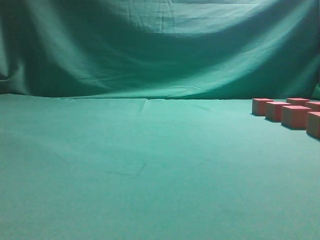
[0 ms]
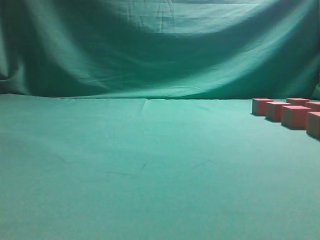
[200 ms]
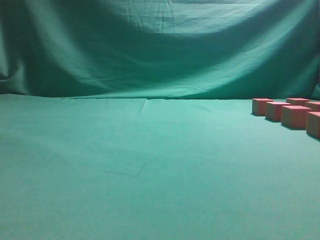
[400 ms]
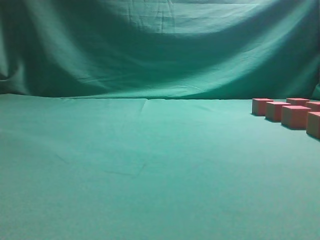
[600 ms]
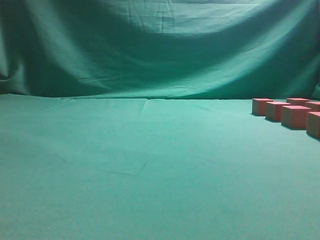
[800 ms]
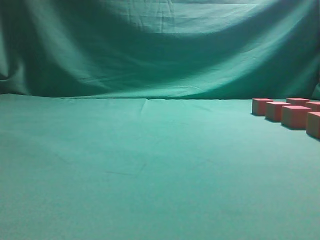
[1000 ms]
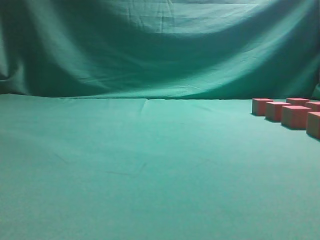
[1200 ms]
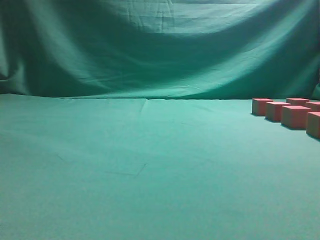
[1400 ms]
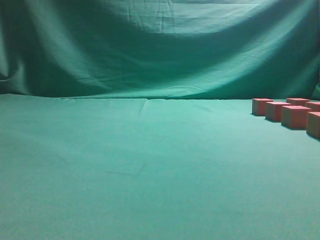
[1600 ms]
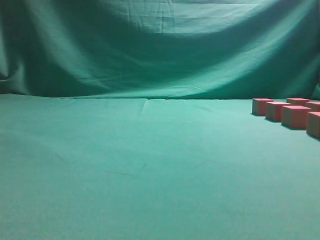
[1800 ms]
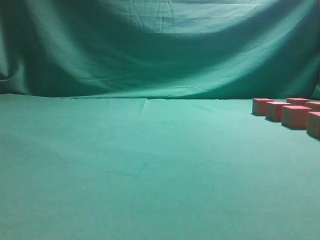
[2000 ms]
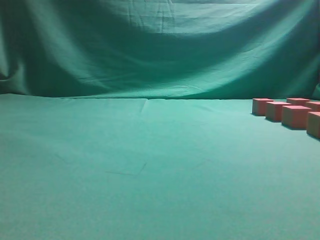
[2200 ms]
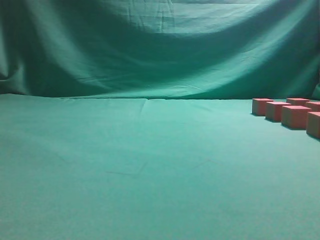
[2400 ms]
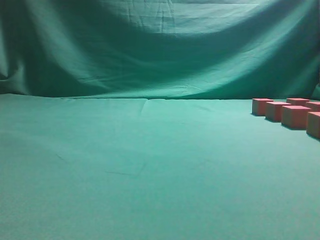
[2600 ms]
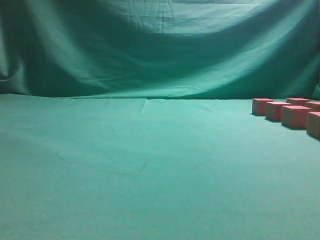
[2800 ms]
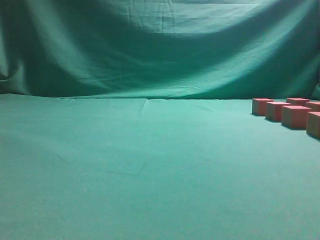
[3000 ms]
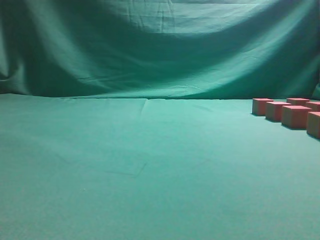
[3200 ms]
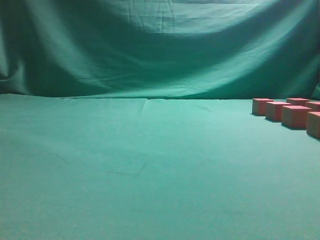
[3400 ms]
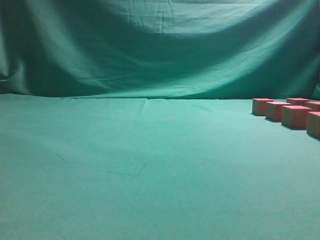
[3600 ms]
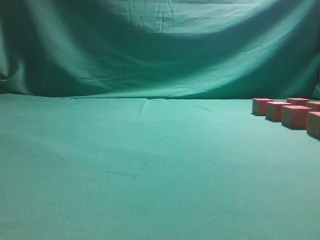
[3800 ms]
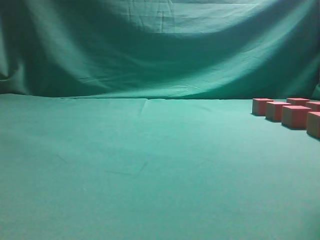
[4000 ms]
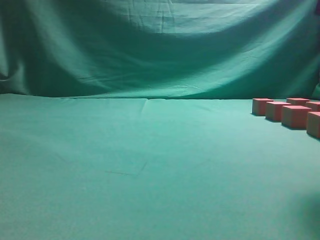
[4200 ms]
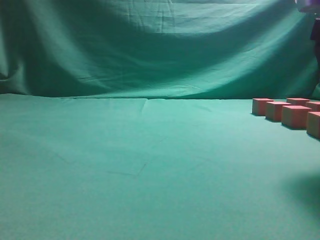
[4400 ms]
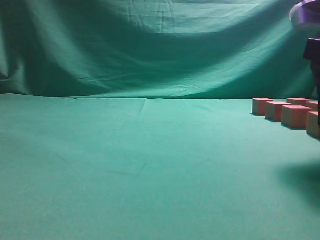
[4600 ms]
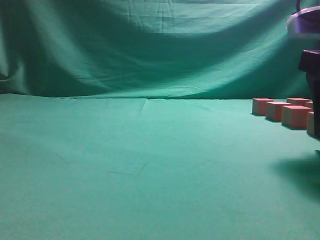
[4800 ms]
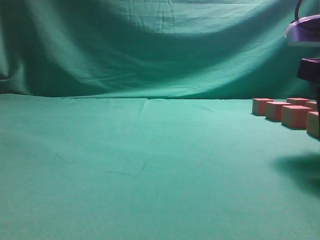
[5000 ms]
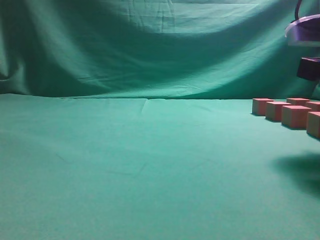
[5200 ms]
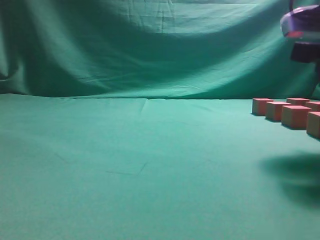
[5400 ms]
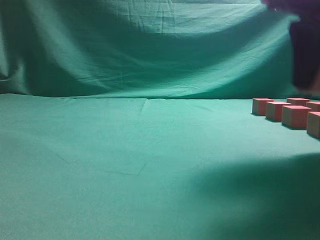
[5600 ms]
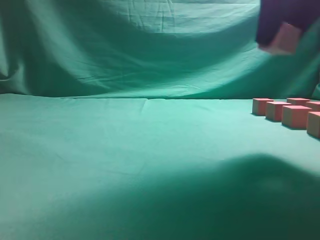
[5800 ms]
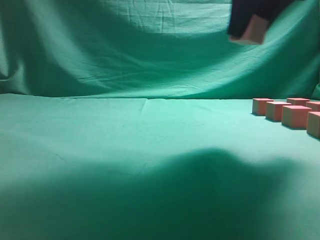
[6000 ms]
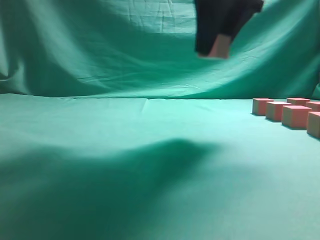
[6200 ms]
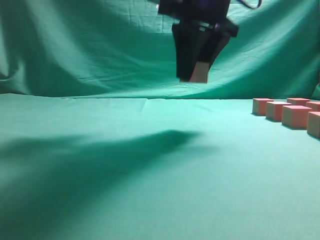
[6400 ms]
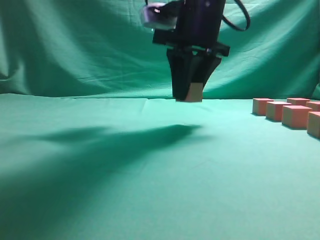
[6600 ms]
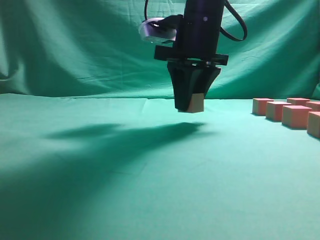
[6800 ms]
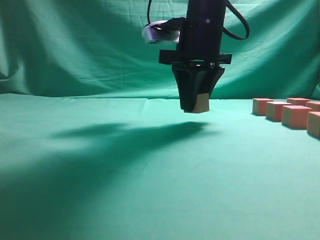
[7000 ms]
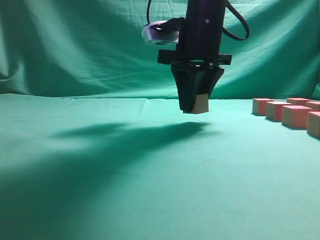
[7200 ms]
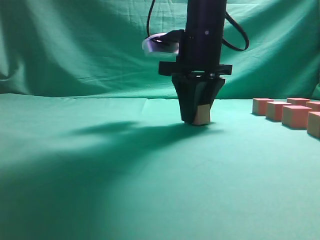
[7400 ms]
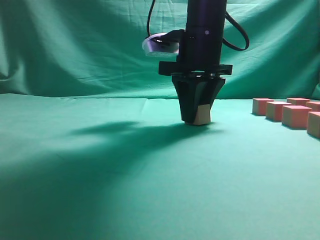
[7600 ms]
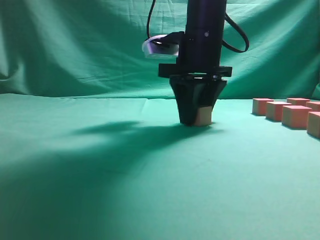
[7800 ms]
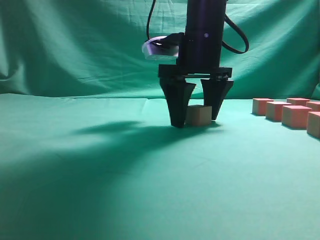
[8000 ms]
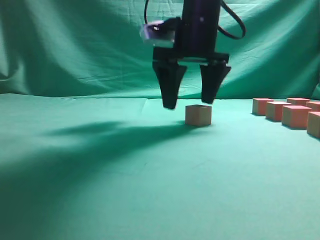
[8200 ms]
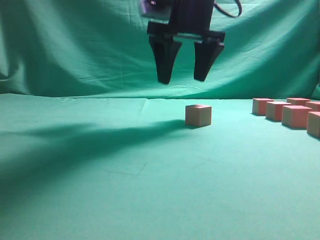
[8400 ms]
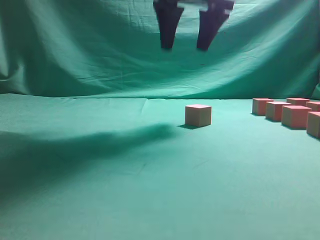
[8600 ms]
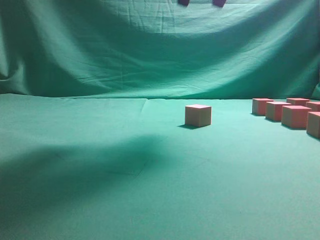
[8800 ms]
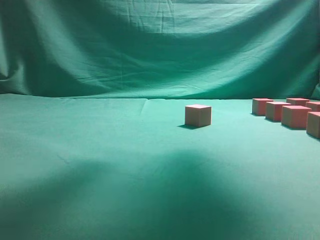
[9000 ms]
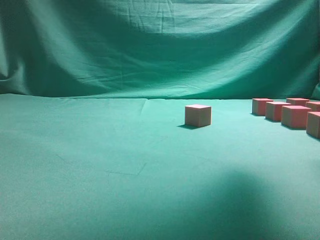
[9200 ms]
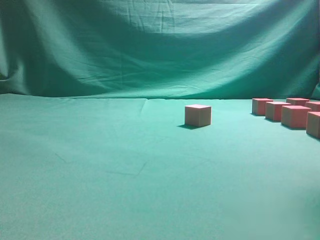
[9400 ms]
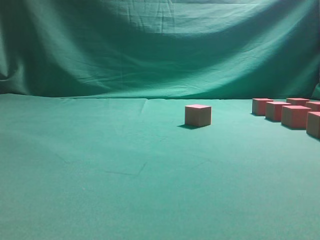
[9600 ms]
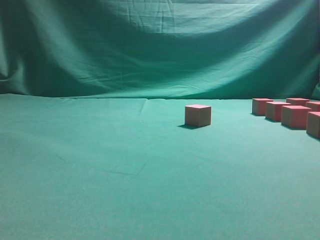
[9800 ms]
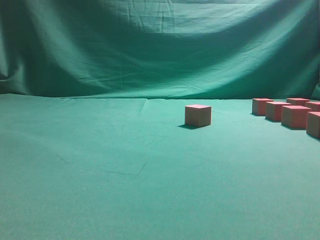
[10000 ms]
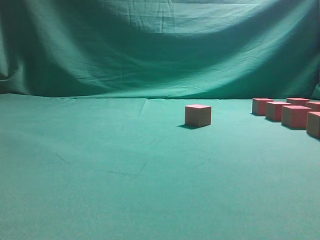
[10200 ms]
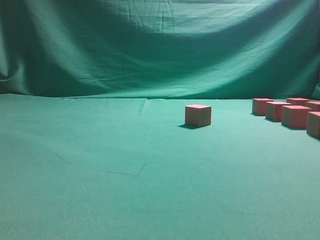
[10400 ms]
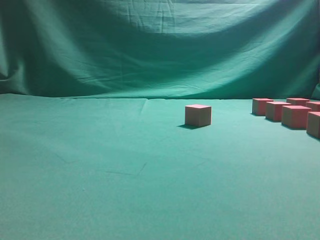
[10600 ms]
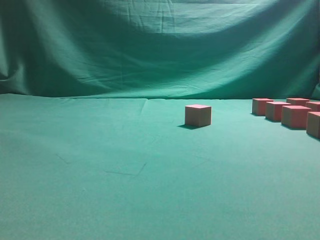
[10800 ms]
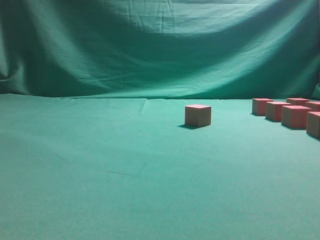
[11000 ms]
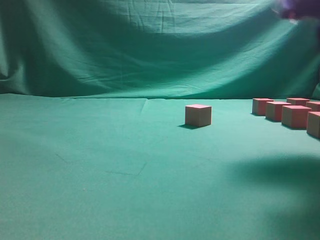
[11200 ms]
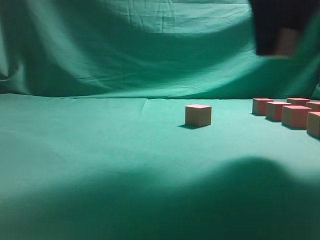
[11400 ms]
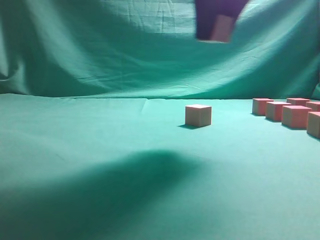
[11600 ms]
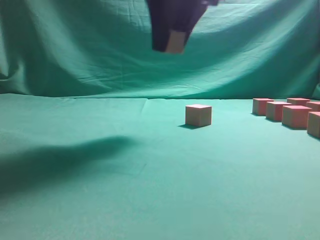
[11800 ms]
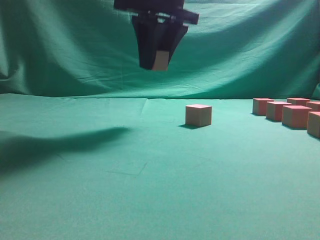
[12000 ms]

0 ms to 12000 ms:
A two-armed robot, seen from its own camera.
Task of the whole recording: pick up the multiple cubes in two columns one by one and place them in another position on the table.
Step, 0 ms to 5400 ms: Pick up the block on the table.
Step, 5600 ms to 8600 ms: Place the block at the correct position to assemble the letter S.
Step, 8800 ms to 11000 ms: Pick up the block on the table.
3000 ms to 4400 ms: The right gripper is displaced forward and downward by some 15 cm, and opens up.
4400 ms to 6000 ms: The right gripper goes roughly 15 cm upward, forward and to the left, and closes its fingers.
6000 ms to 7600 ms: The right gripper shifts about 15 cm downward, to the left and forward.
7600 ms to 9000 ms: The right gripper shifts about 20 cm upward, and opens.
9000 ms to 10400 ms: The right gripper travels downward and to the right by about 25 cm.
10400 ms to 12000 ms: The right gripper is displaced to the left by some 25 cm, and closes up.

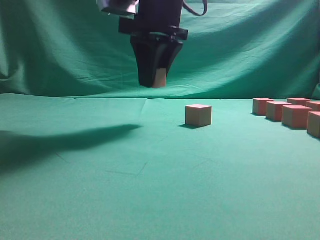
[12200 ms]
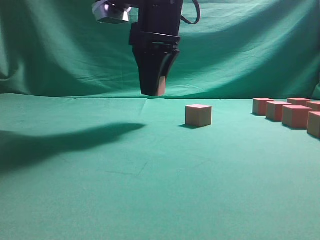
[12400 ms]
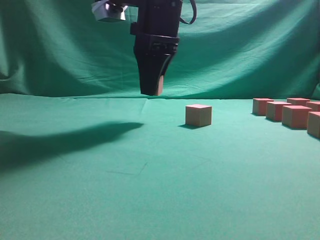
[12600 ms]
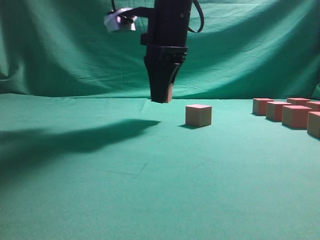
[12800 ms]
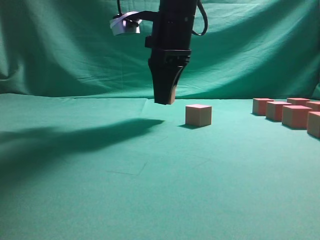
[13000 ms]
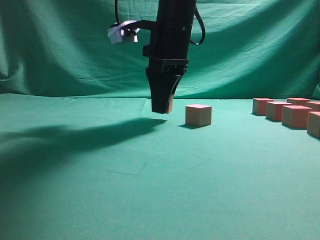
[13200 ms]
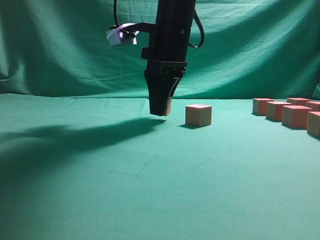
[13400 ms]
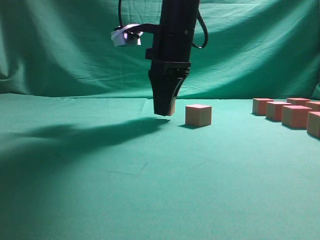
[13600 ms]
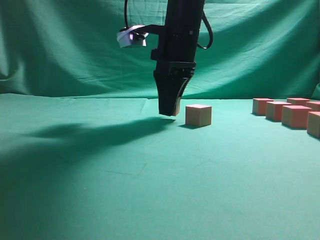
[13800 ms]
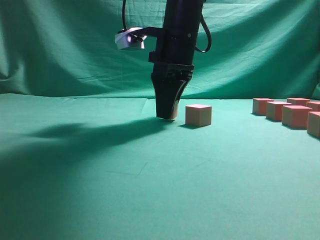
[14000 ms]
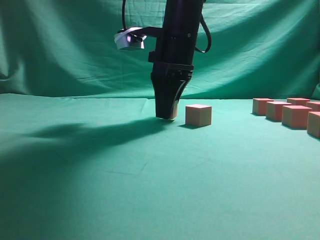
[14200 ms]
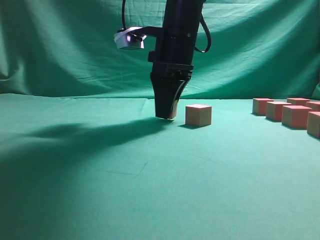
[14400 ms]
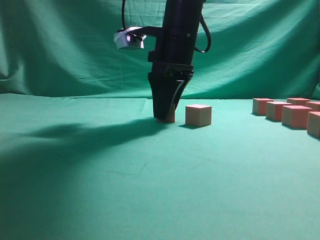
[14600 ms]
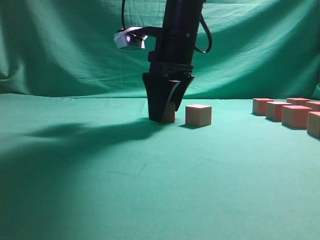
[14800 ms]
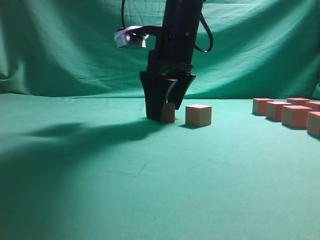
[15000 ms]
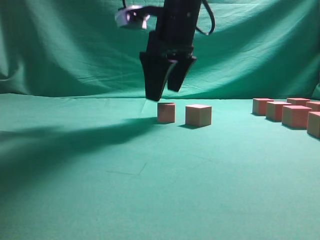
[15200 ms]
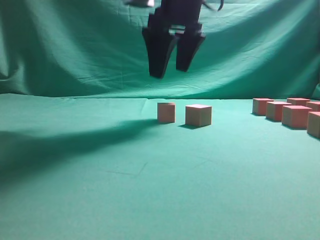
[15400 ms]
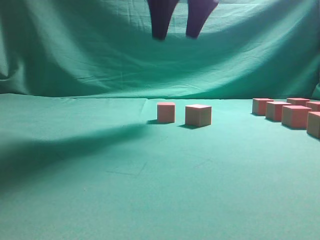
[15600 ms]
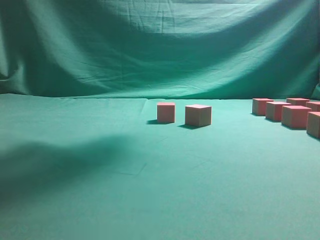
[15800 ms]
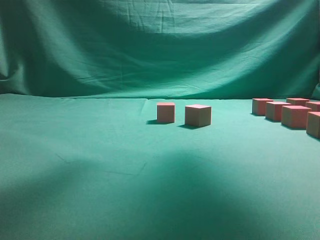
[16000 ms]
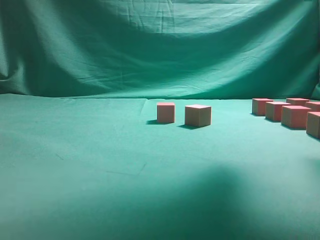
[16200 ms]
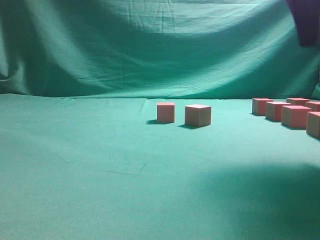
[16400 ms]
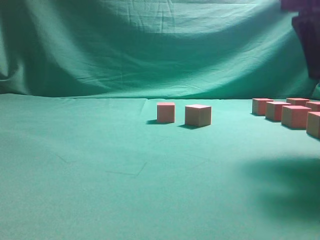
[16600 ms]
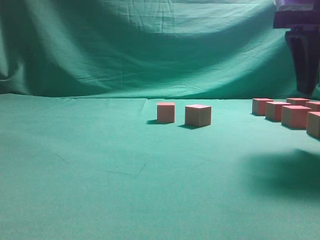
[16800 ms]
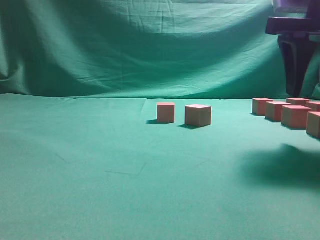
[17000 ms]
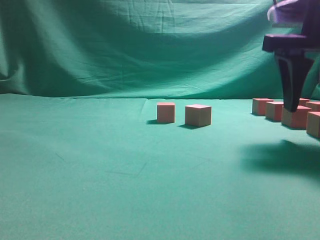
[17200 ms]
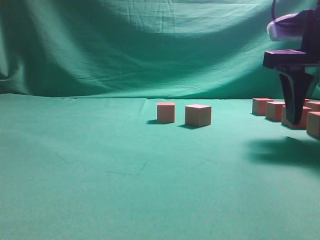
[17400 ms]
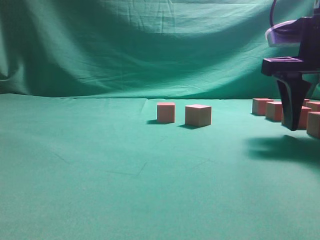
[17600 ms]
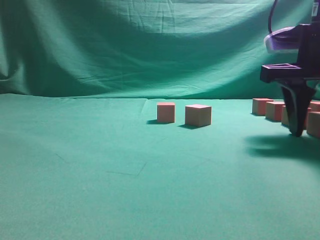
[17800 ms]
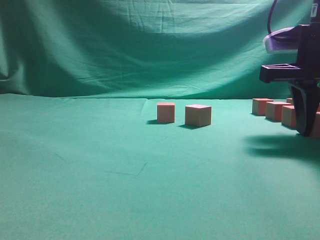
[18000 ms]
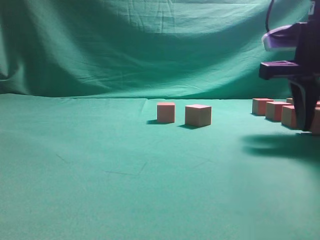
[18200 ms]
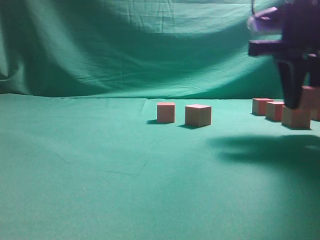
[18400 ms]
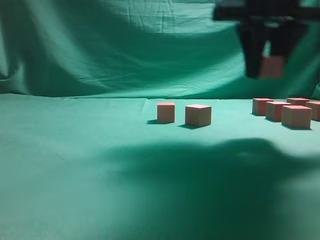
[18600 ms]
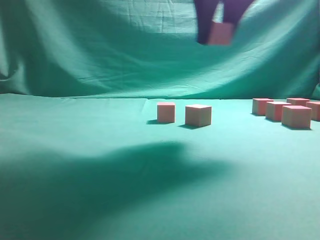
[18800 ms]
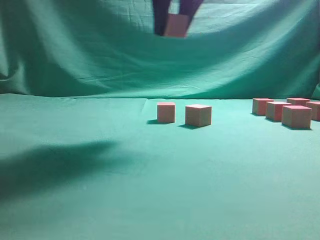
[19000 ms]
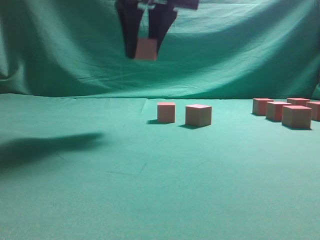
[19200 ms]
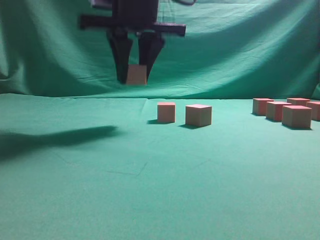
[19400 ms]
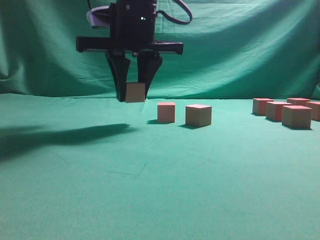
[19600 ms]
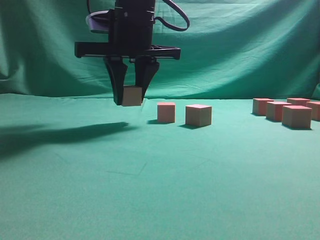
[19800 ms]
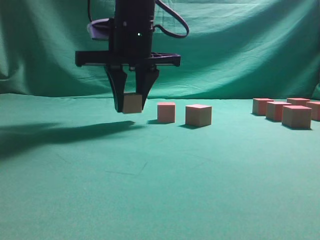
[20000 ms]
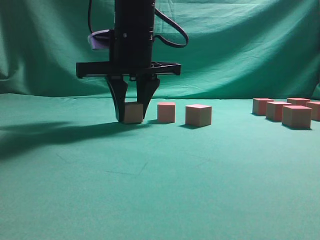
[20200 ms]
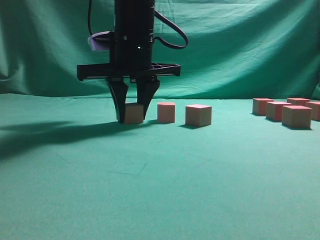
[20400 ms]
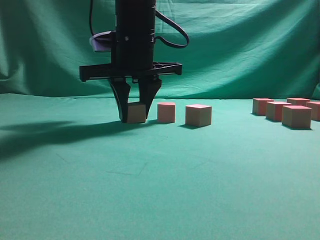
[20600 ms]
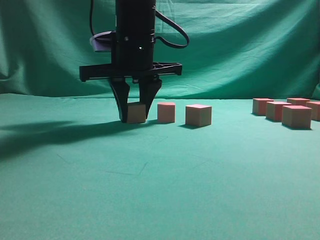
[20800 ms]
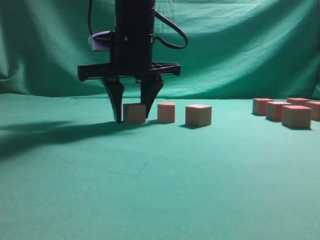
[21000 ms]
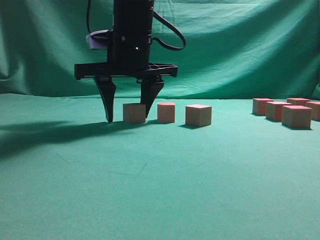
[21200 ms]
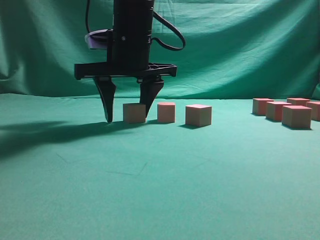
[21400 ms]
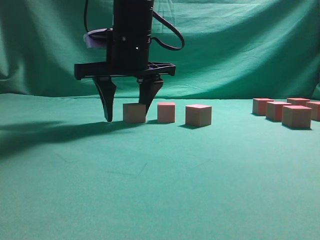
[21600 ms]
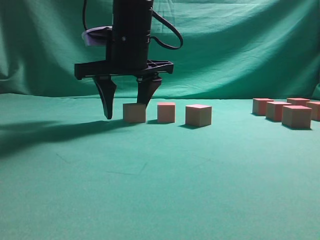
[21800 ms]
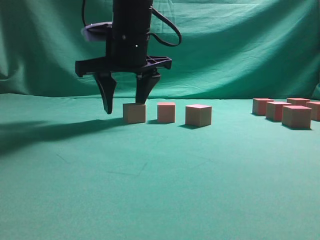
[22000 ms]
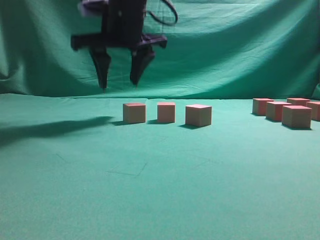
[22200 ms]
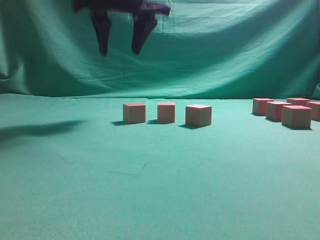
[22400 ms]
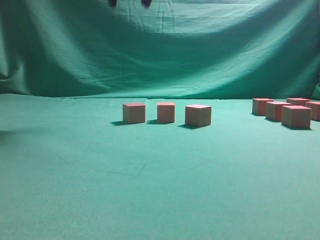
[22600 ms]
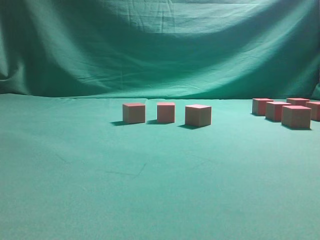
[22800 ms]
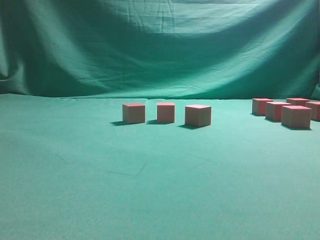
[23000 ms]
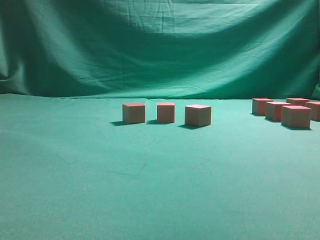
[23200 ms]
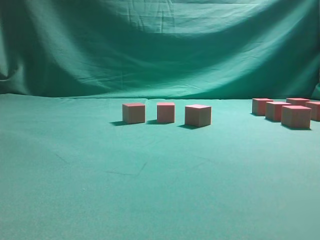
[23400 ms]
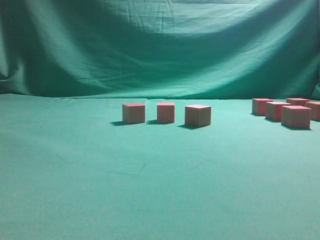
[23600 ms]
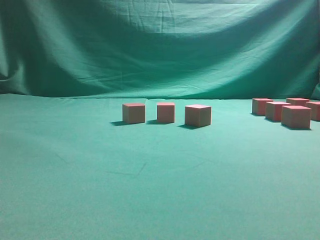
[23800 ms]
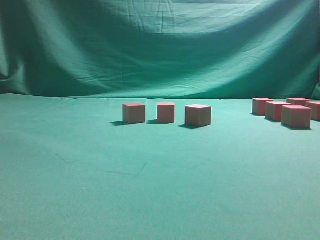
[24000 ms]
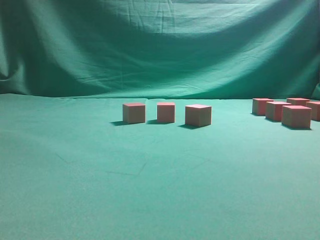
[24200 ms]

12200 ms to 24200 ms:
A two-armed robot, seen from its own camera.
Task of the whole recording: pick up the multiple cubes in two columns one by one and place them in another position on the table.
Step, 12200 ms to 15400 ms: Place the block at the correct position to assemble the letter S.
Step, 15600 ms to 18400 ms: Pick up the block on the table.
Step, 18600 ms to 22400 ms: Place the block at the correct position to assemble the letter S.
12200 ms to 13800 ms: The right gripper moves approximately 5 cm.
13800 ms to 15200 ms: The right gripper opens up.
15200 ms to 16600 ms: The right gripper heads to the right and backward, covering roughly 20 cm.
16600 ms to 18200 ms: The right gripper travels downward by some 10 cm, and closes.
18200 ms to 19800 ms: The right gripper shifts roughly 25 cm to the left.
19800 ms to 21200 ms: The grippers make only small movements.
21200 ms to 22600 ms: The right gripper heads upward, covering roughly 15 cm.
